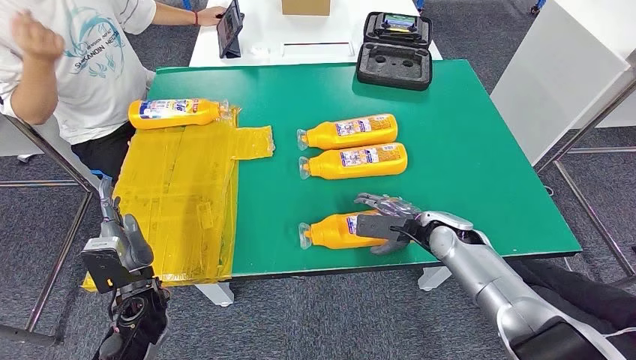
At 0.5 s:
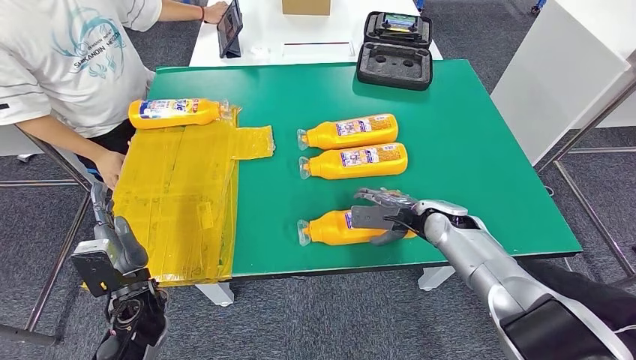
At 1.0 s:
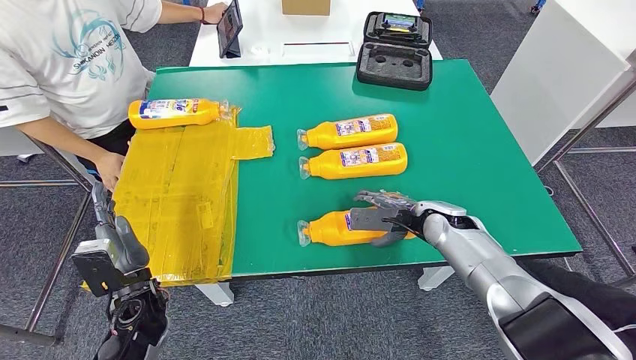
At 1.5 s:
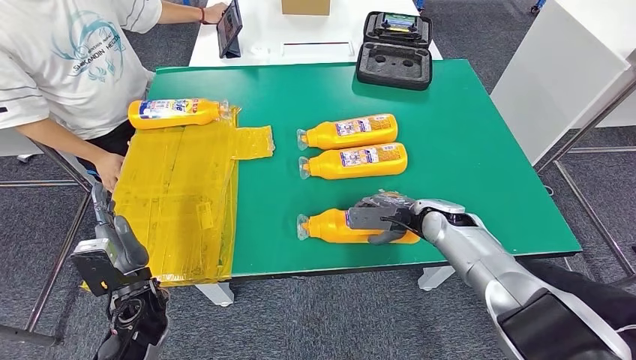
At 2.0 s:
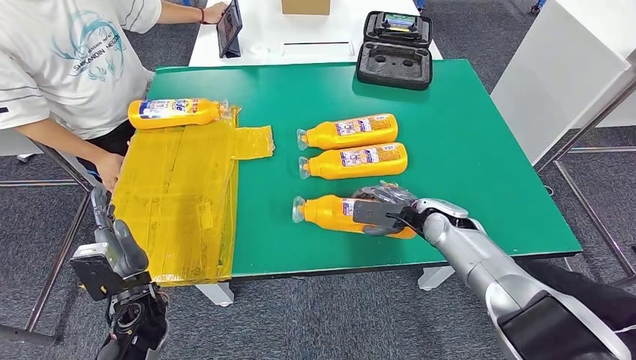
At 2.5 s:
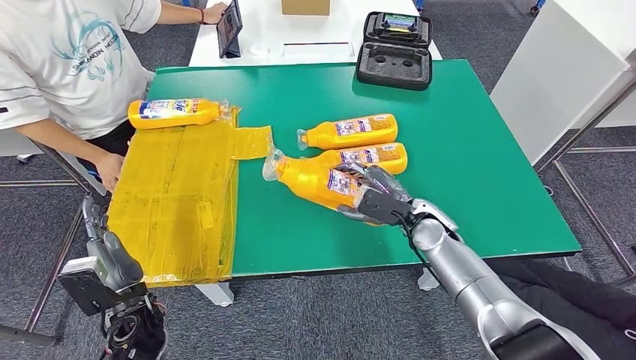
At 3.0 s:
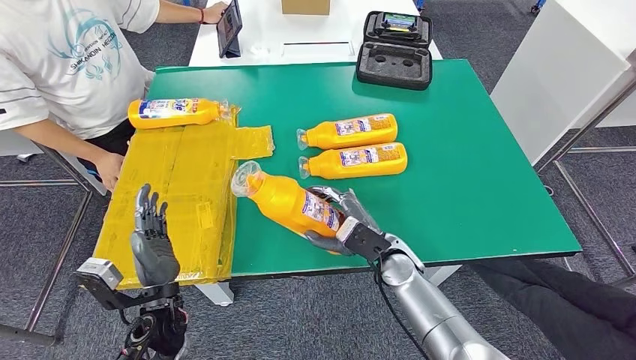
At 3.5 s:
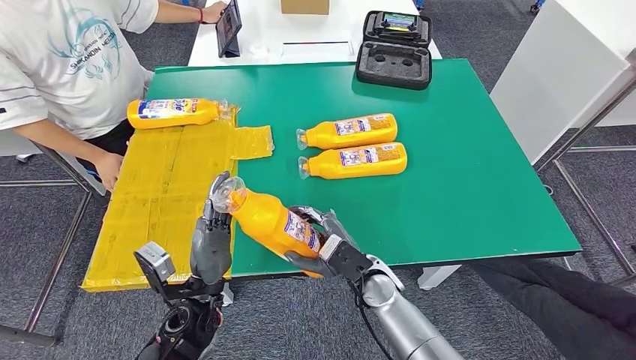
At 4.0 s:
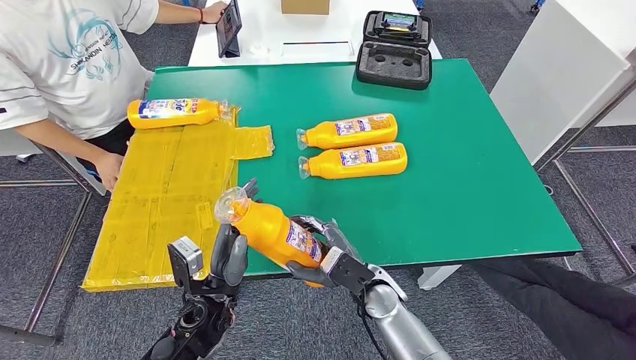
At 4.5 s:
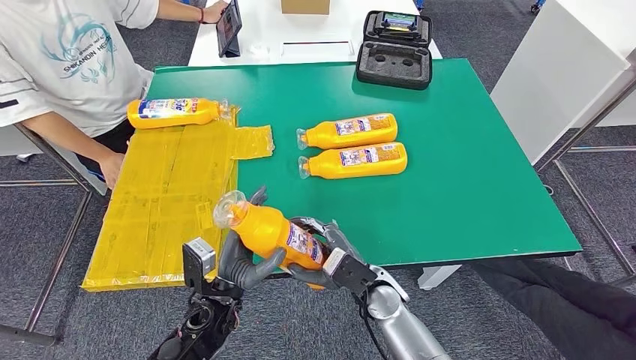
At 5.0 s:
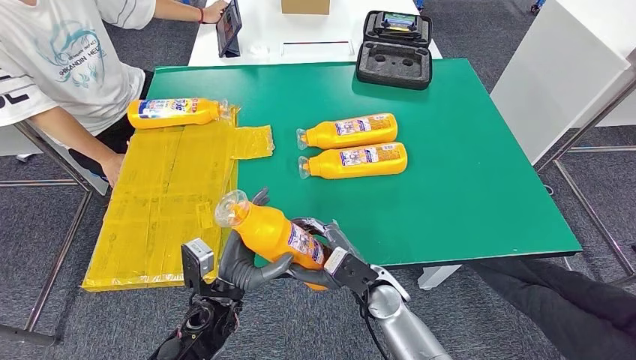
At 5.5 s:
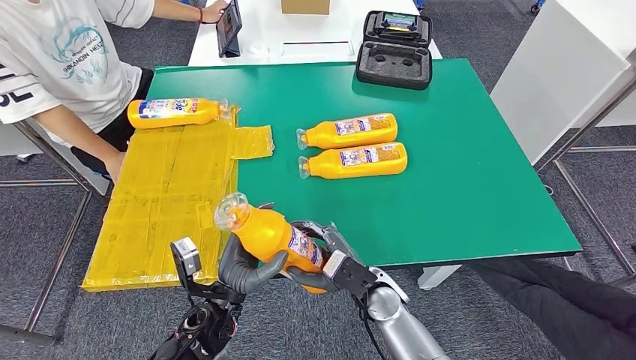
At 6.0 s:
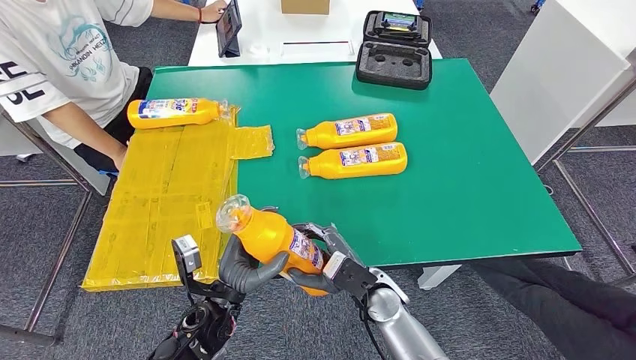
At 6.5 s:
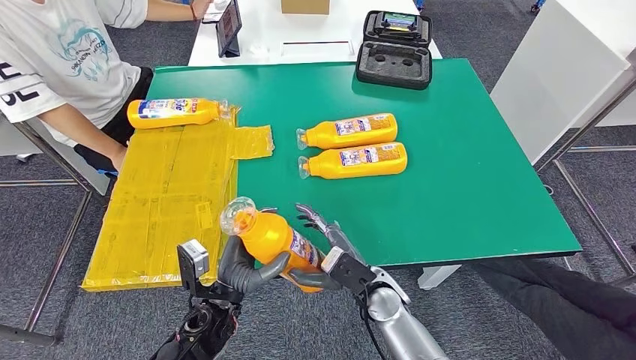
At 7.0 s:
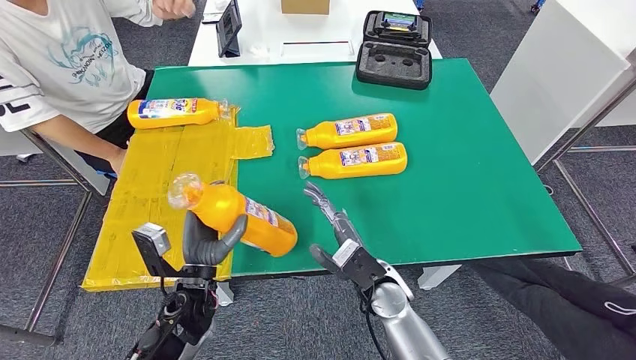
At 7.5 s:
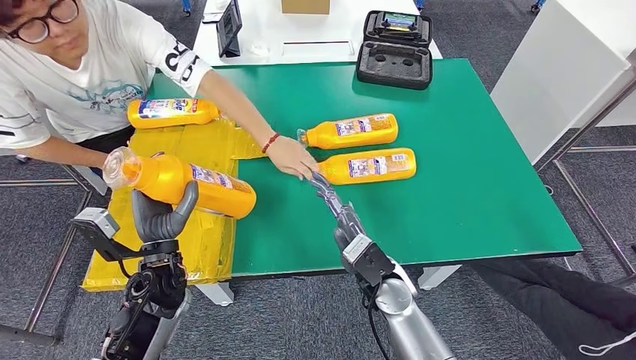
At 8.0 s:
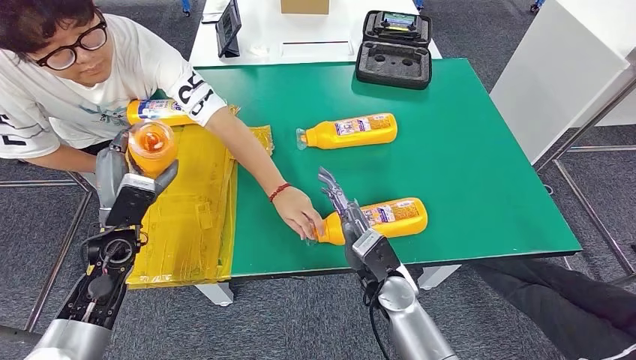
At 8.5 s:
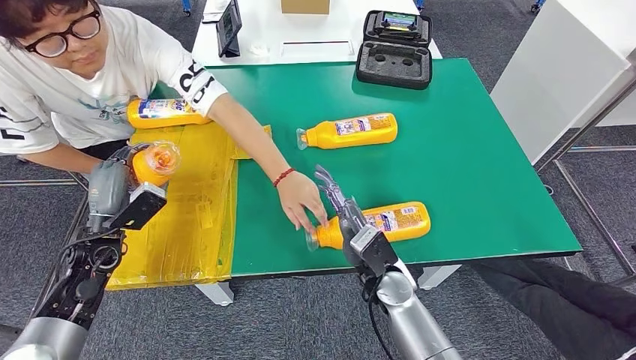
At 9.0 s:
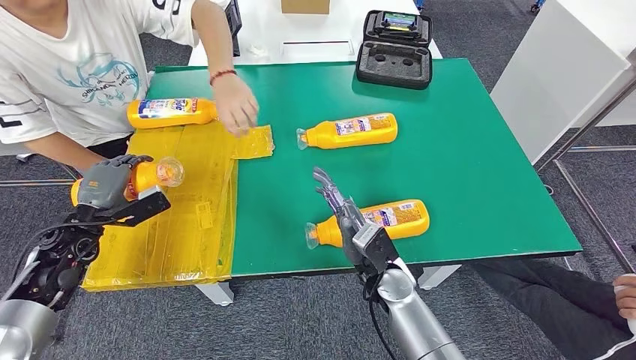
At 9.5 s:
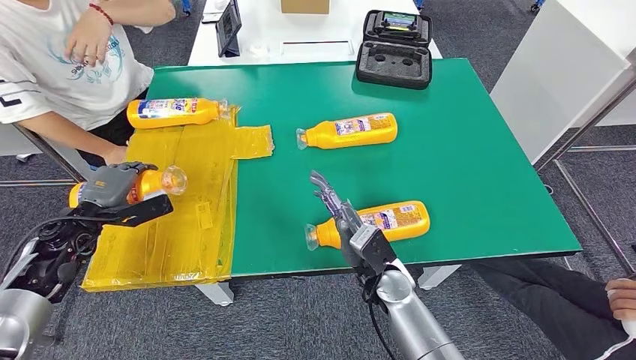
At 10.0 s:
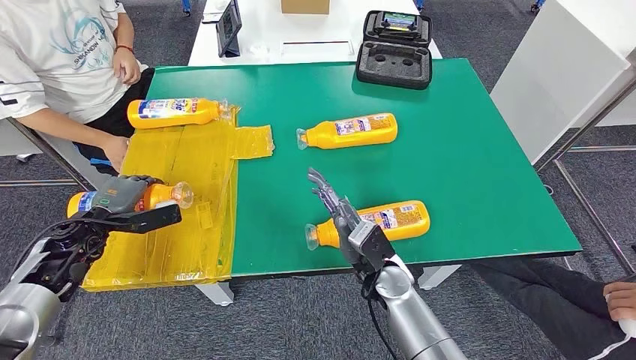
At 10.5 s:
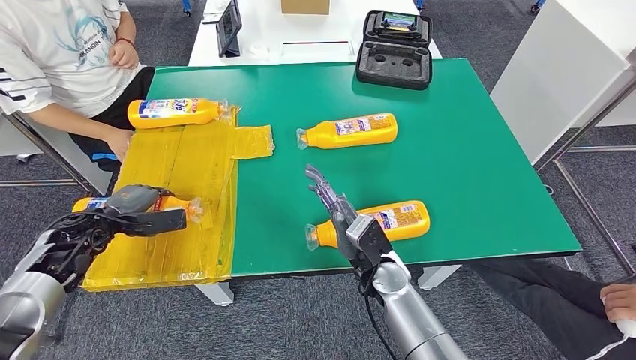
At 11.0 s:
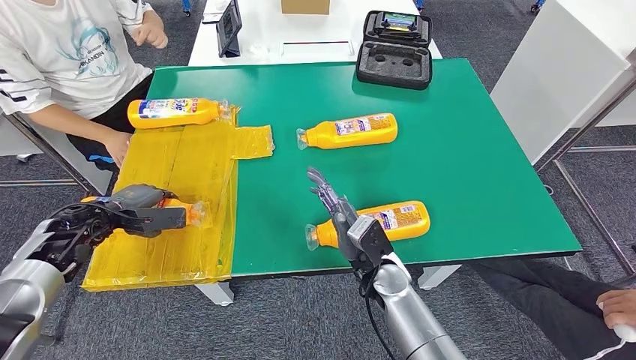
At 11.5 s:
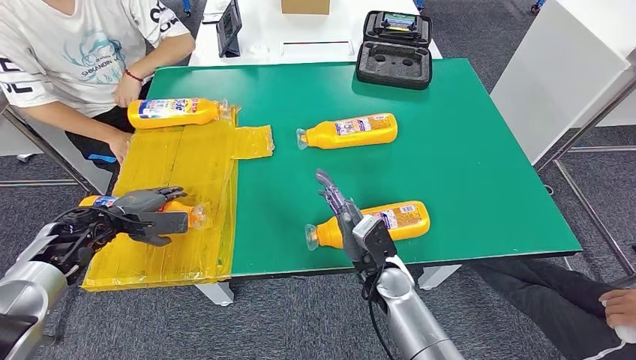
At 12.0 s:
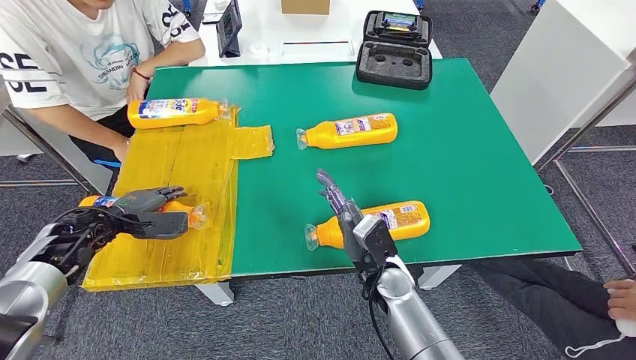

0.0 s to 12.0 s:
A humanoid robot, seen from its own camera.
Step, 0.0 to 3.0 s: Pick up the fast-moving consumer goods bottle from the table.
Step, 3.5 to 9.0 s: Flip the fast-moving consumer goods bottle to the front side.
0.0 to 2.0 s: The hands stay close to where they were, moving slightly.
2.0 to 4.0 s: The left hand travels to the right by about 15 cm; the right hand goes about 20 cm to the left and backward.
4.0 to 6.0 s: The hands stay close to where they were, moving slightly.

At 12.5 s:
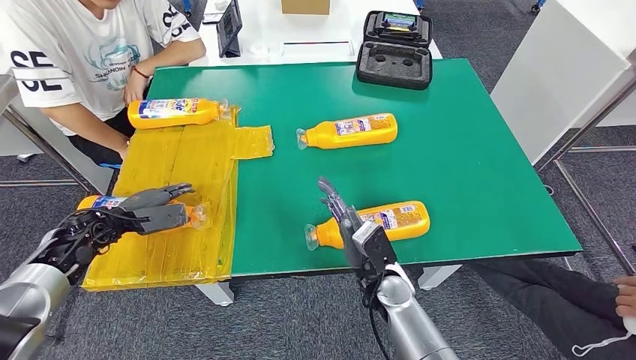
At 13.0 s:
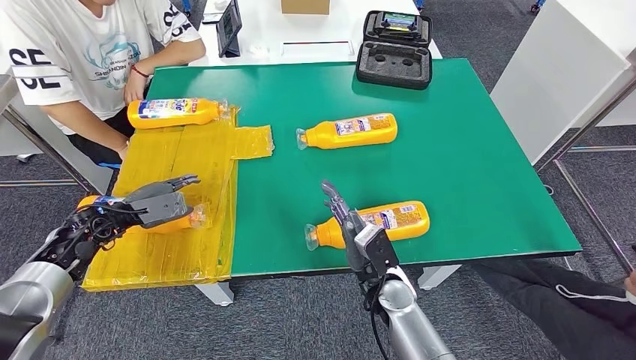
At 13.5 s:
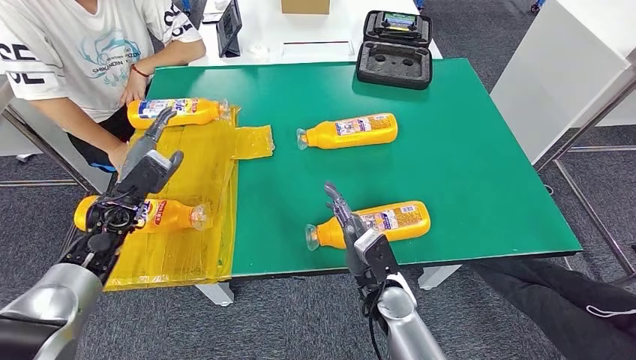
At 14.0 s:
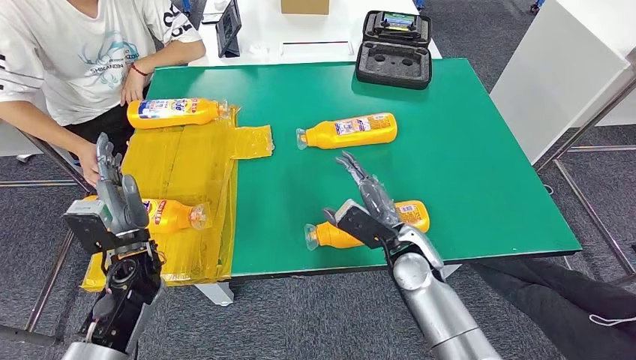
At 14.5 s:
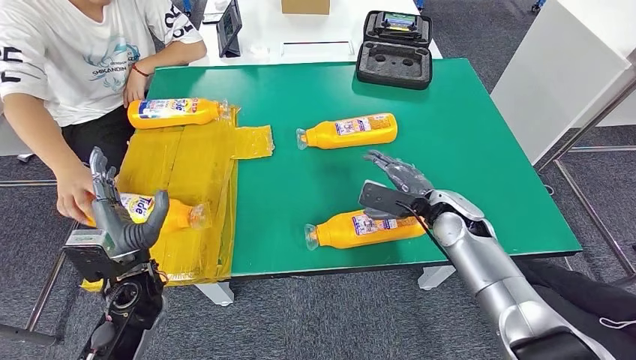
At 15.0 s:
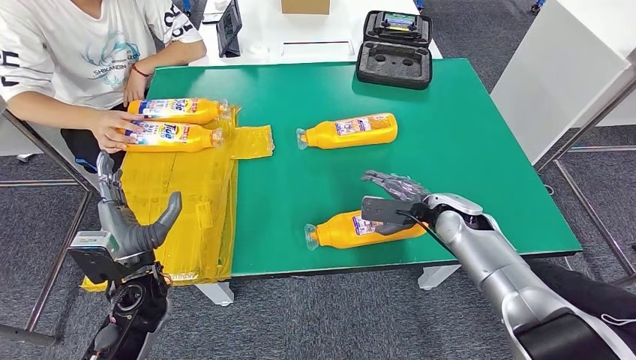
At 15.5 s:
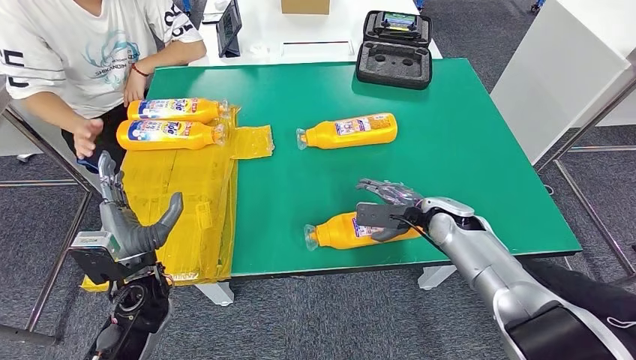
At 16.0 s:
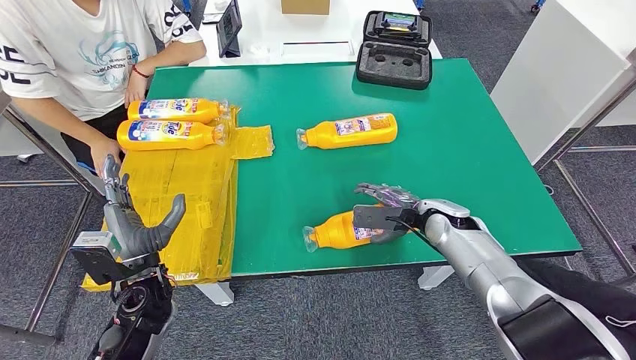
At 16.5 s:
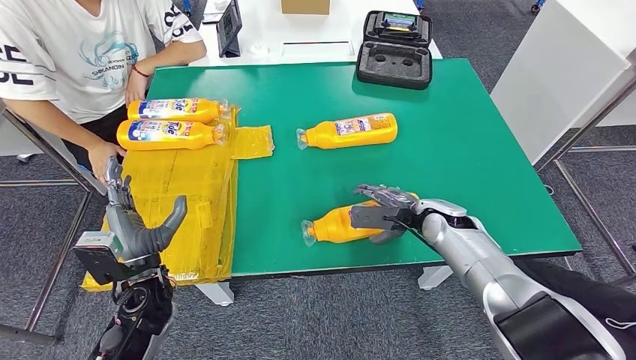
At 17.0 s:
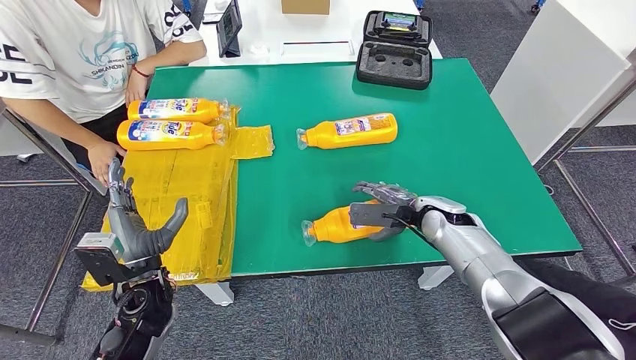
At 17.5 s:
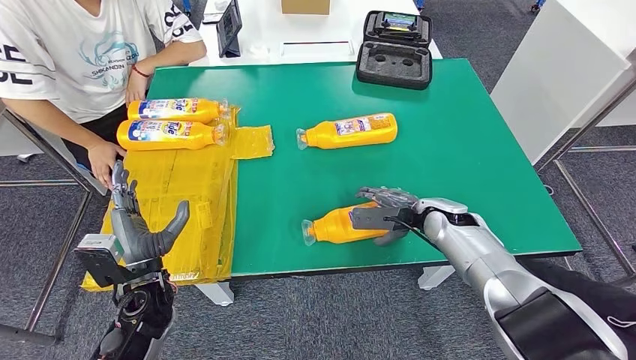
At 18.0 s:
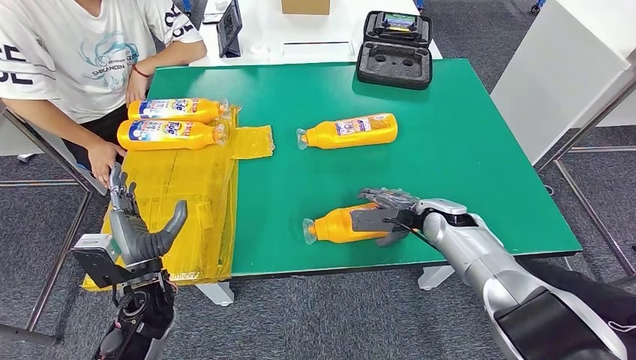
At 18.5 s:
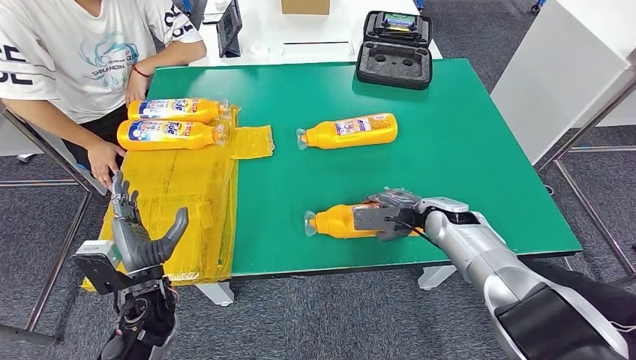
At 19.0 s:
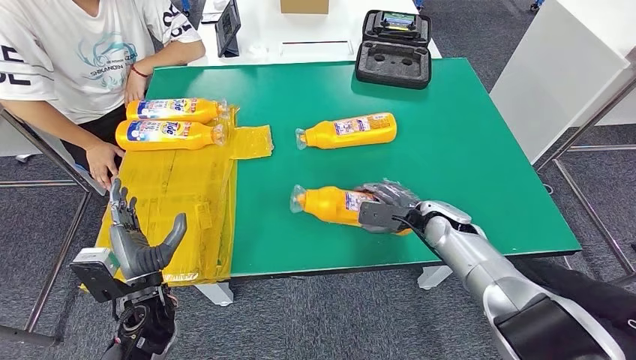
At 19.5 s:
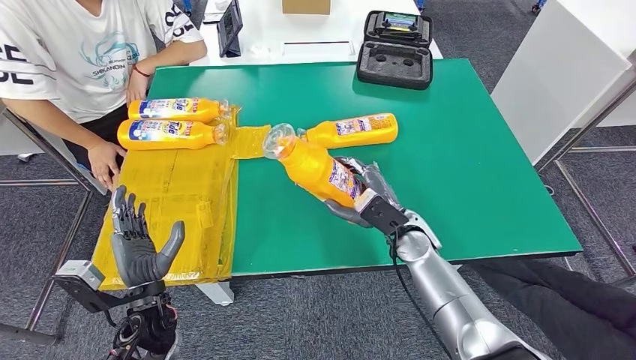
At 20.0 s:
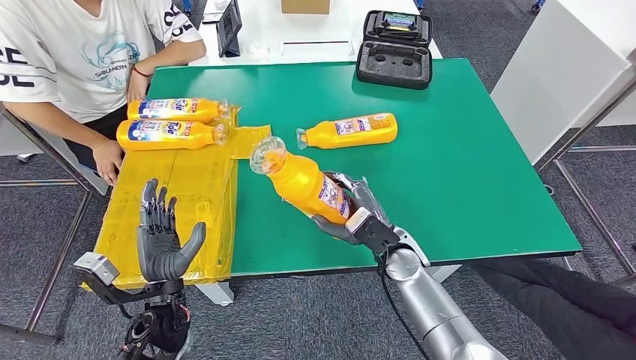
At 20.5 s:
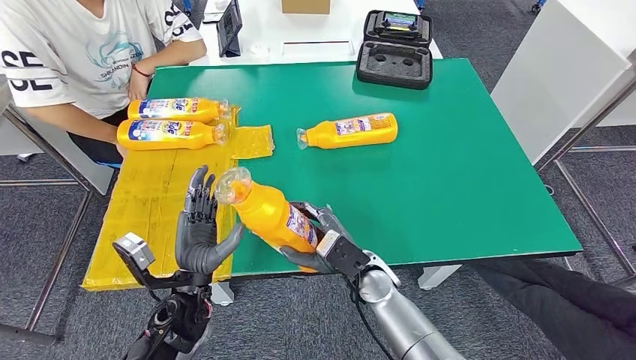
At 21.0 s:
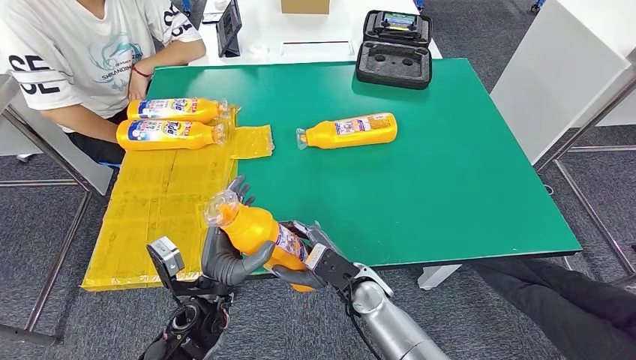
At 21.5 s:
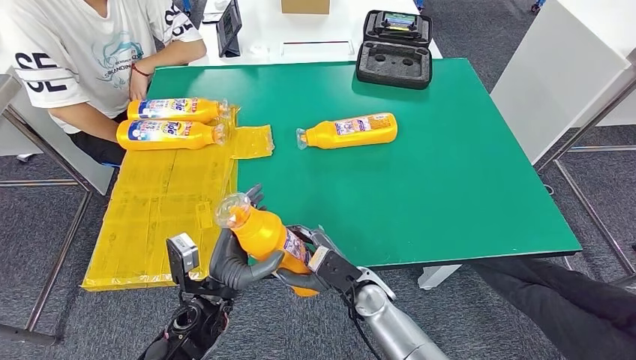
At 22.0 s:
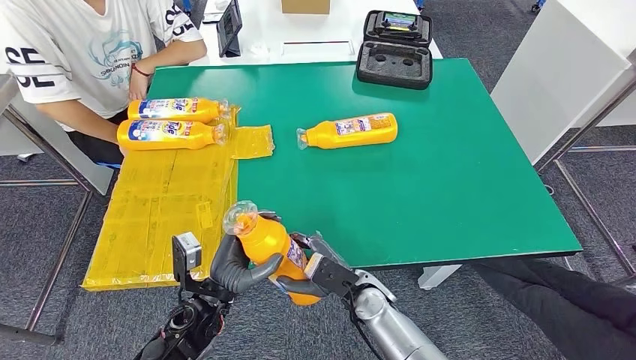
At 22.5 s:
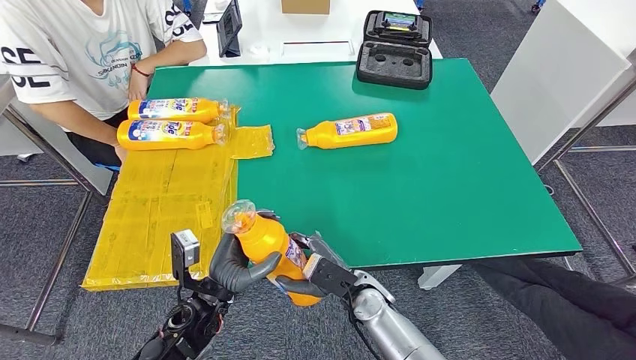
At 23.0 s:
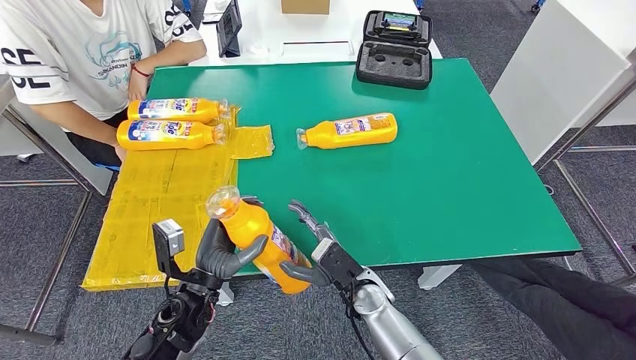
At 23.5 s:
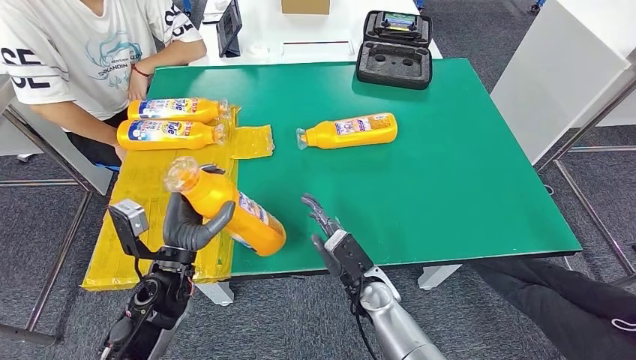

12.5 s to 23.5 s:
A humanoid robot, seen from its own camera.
Step, 12.5 to 19.0 s: Pick up the fast-moving consumer goods bottle from the table.
14.5 to 16.0 s: There are only small adjustments of the hands.
16.0 to 18.0 s: There are only small adjustments of the hands.
18.0 to 20.0 s: The right hand goes some 10 cm to the left and backward.
21.5 to 23.5 s: The left hand moves to the left, some 5 cm.
